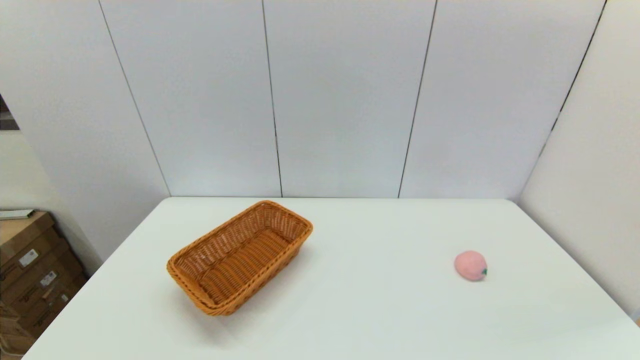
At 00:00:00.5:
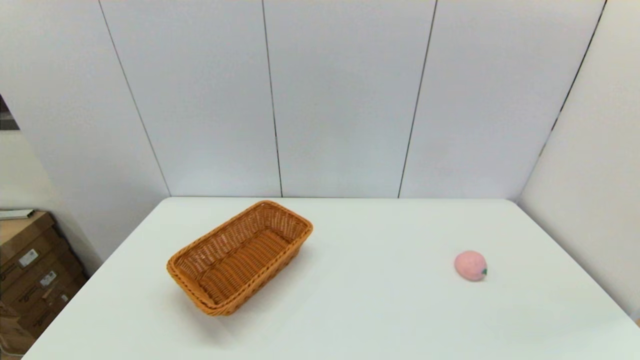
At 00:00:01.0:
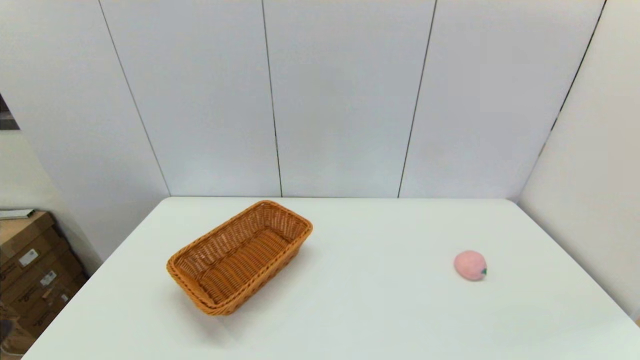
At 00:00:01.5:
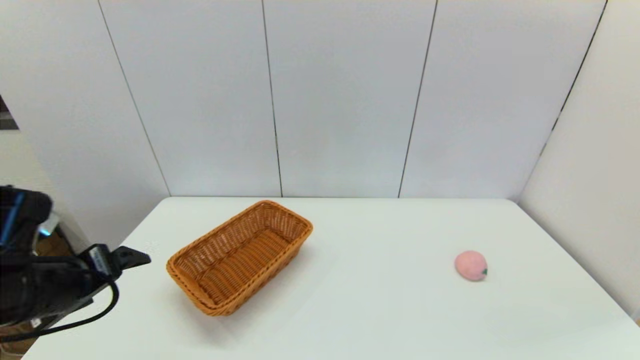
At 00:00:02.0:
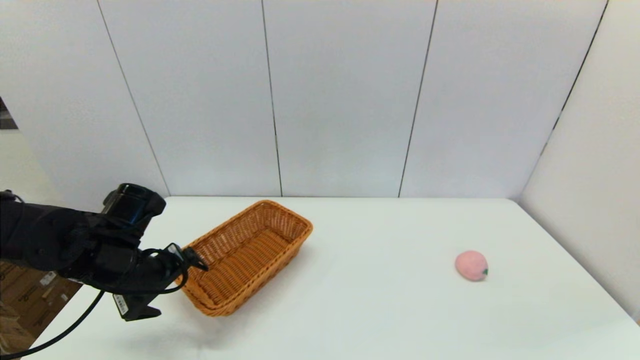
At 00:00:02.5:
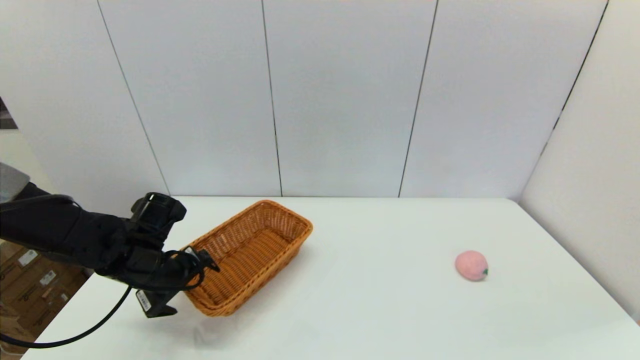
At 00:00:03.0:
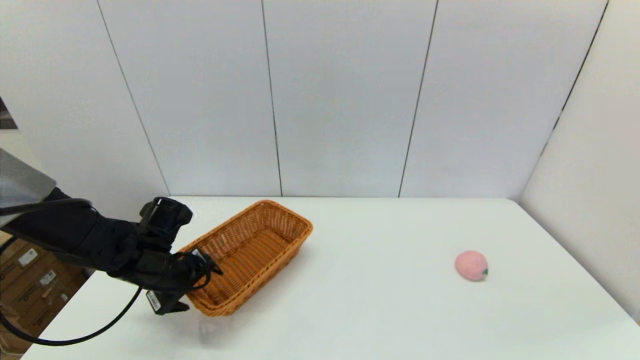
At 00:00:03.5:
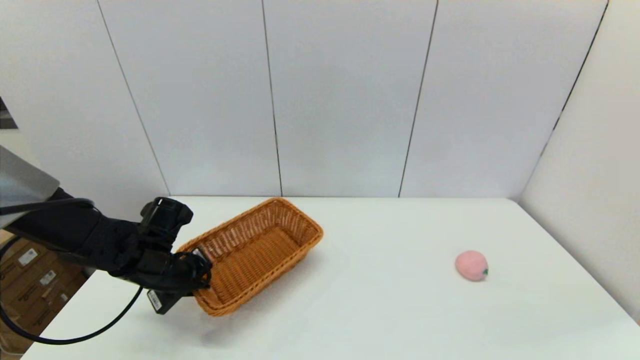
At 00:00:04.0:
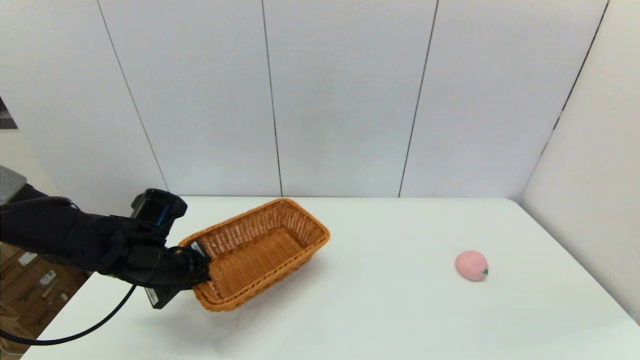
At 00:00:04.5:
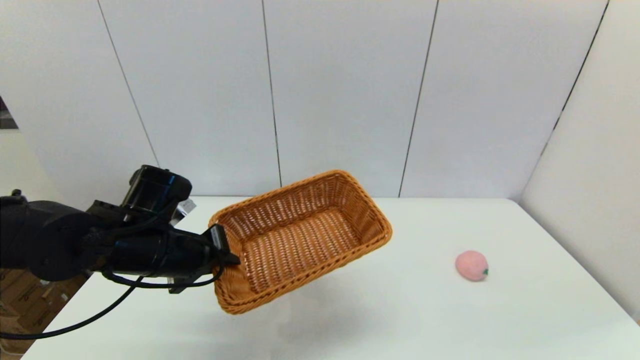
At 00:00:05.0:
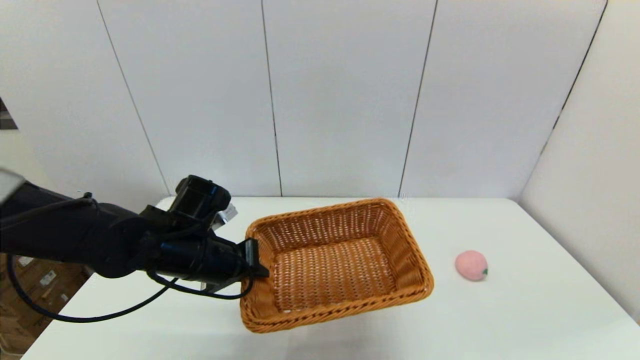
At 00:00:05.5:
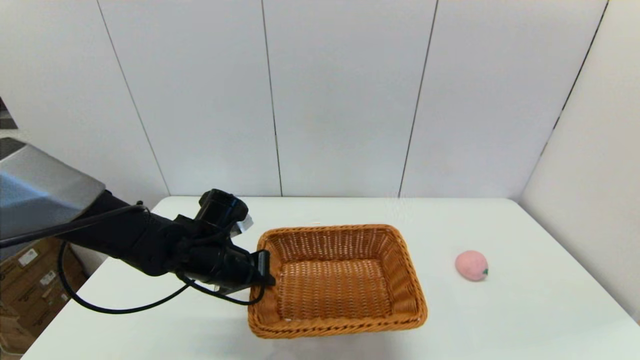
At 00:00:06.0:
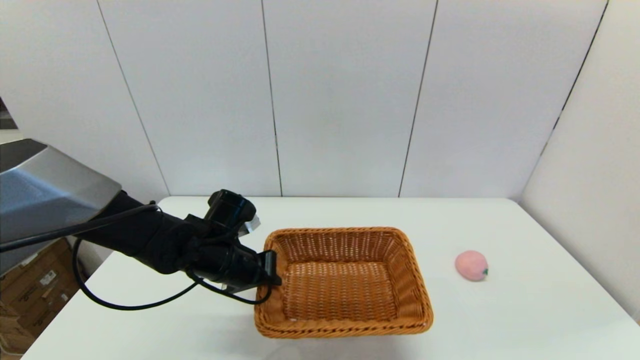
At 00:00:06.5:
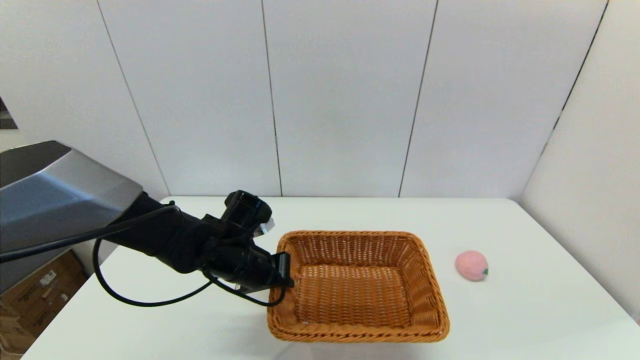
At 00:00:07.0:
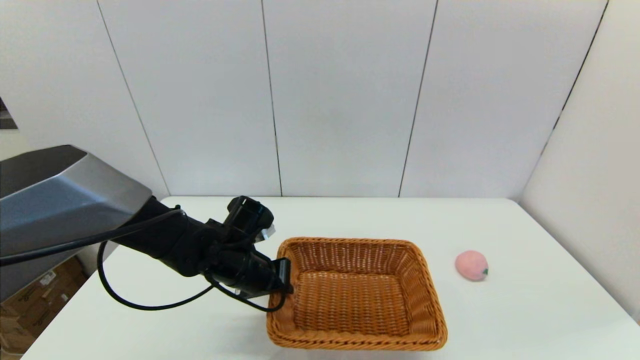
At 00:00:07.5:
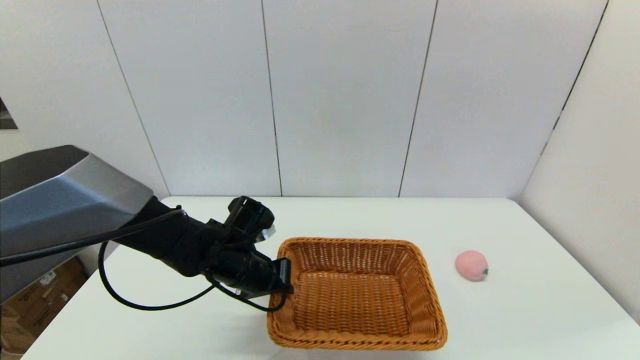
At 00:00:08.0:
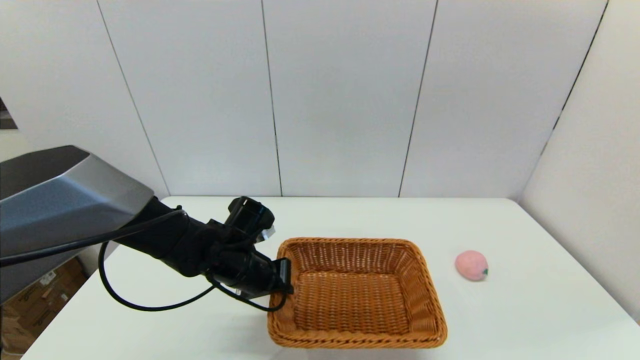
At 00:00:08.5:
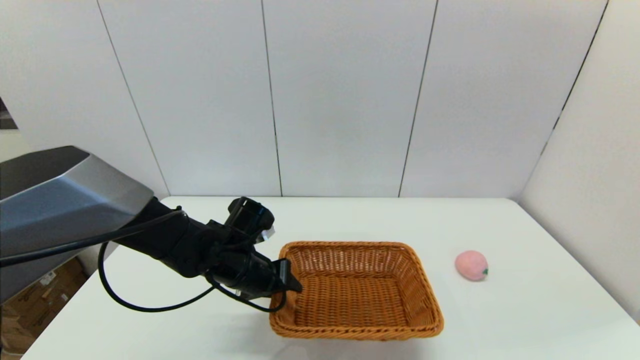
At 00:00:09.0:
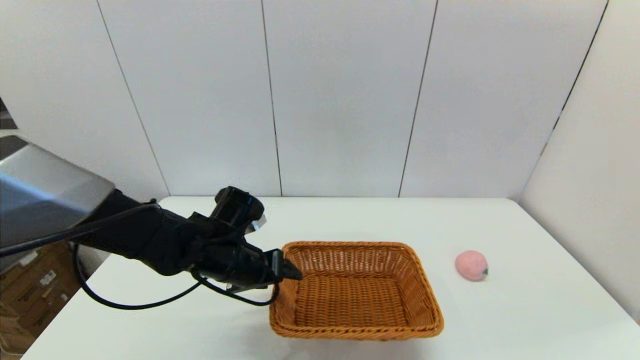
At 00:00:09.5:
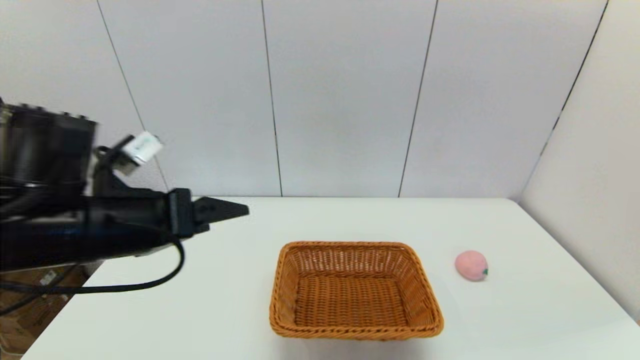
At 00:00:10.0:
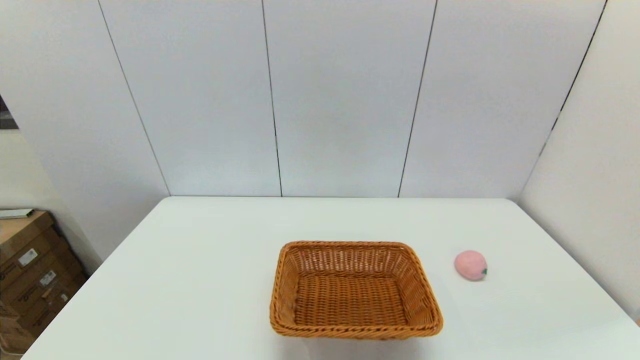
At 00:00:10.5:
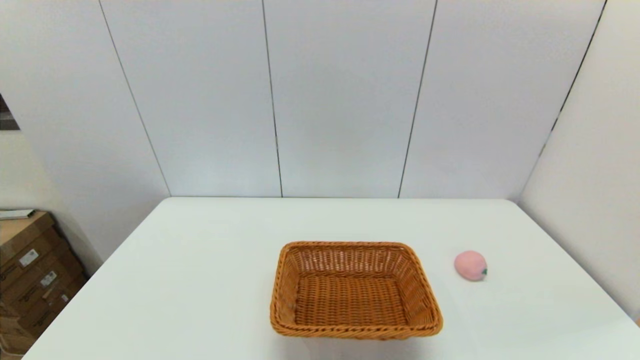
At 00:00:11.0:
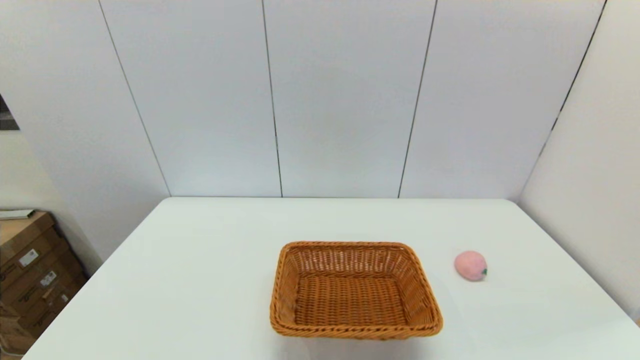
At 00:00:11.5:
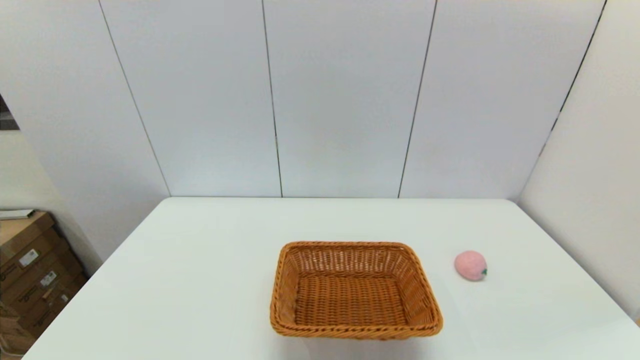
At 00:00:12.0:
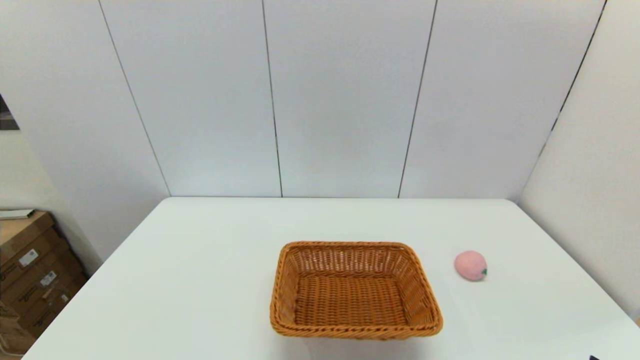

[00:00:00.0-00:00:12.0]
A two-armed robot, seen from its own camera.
Step, 00:00:00.0 to 00:00:03.5: Grasp the light basket with the left gripper.
Step, 00:00:04.0 to 00:00:08.5: Place the light basket on the middle of the table with the left gripper.
00:00:00.0 to 00:00:02.0: The left gripper heads forward, covering approximately 30 cm.
00:00:02.0 to 00:00:04.0: The left gripper closes its fingers.
00:00:04.0 to 00:00:06.0: The left gripper moves to the right, approximately 10 cm.
00:00:06.0 to 00:00:08.0: The grippers stay close to where they were, moving slightly.
00:00:08.0 to 00:00:10.0: The left gripper shifts about 40 cm backward, upward and to the left, and opens its fingers.

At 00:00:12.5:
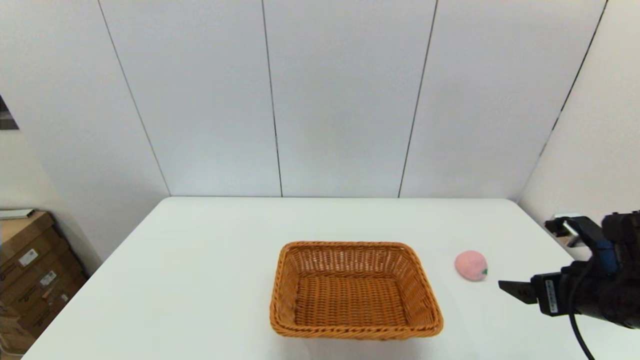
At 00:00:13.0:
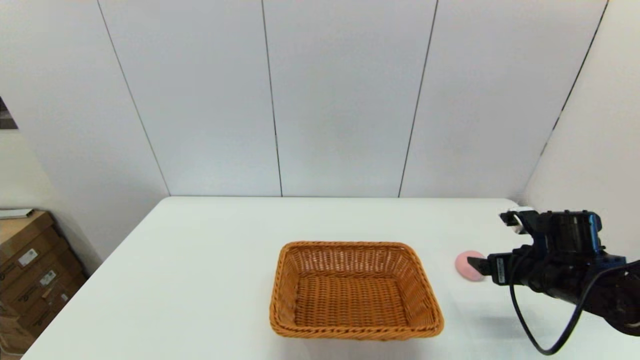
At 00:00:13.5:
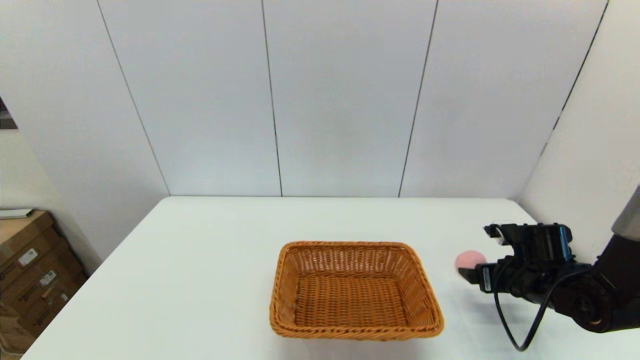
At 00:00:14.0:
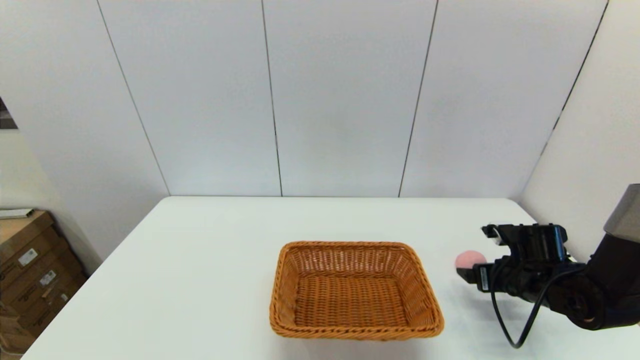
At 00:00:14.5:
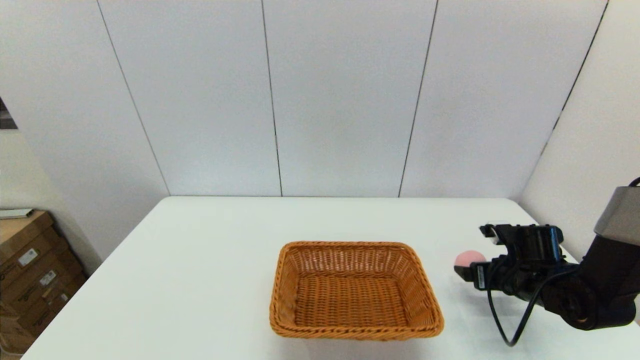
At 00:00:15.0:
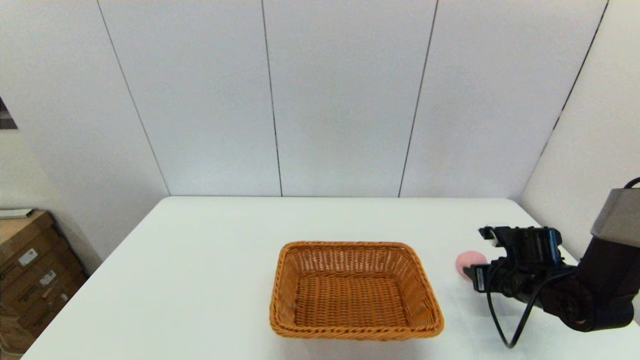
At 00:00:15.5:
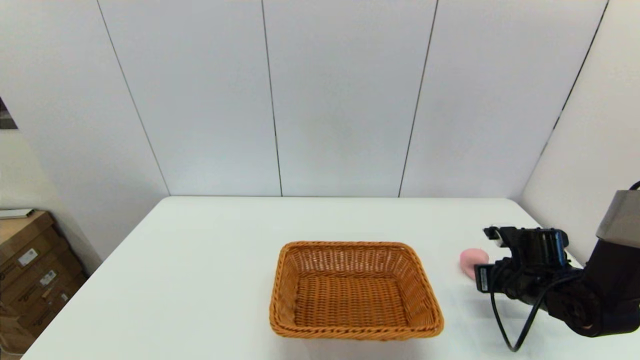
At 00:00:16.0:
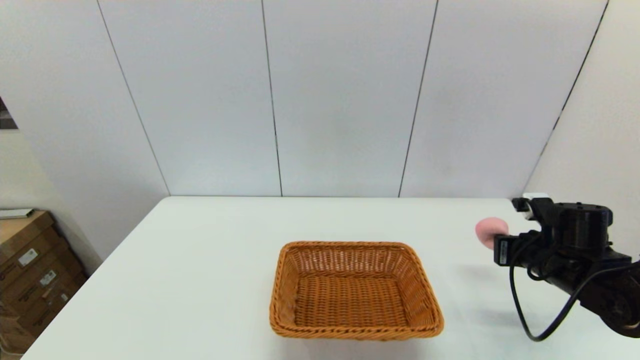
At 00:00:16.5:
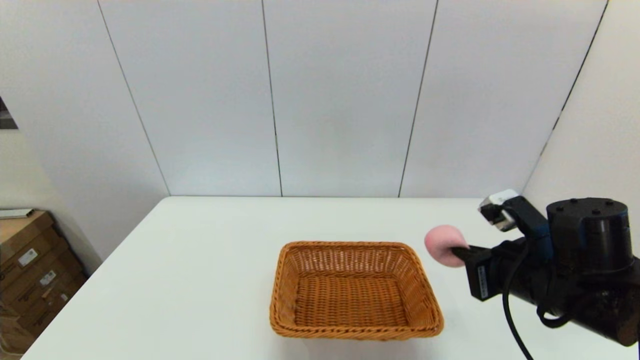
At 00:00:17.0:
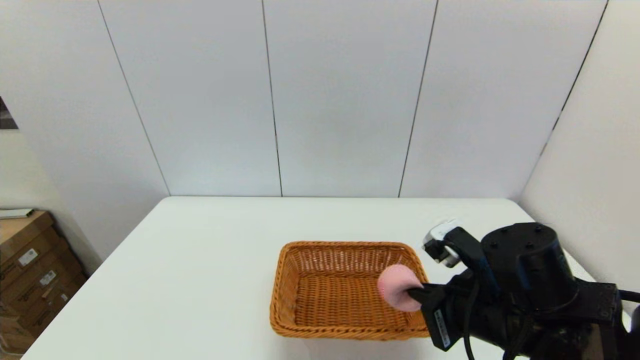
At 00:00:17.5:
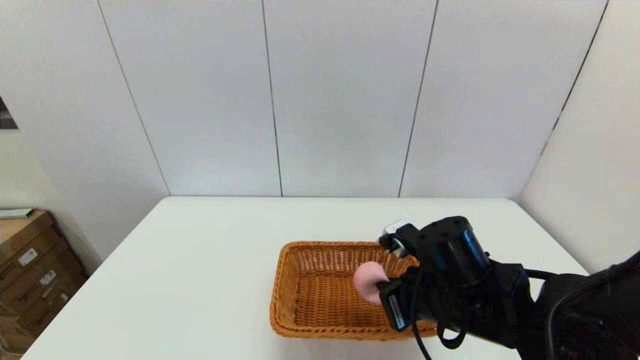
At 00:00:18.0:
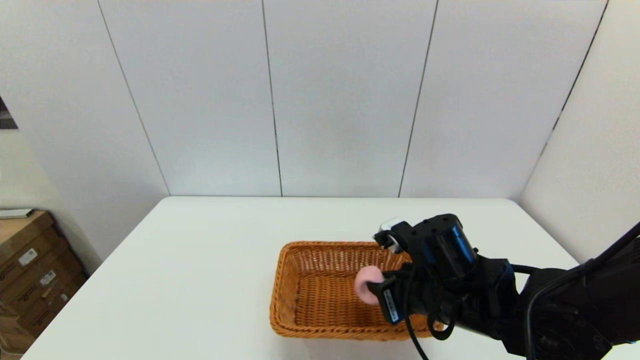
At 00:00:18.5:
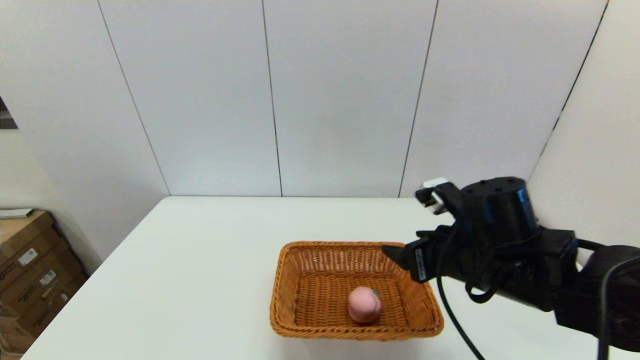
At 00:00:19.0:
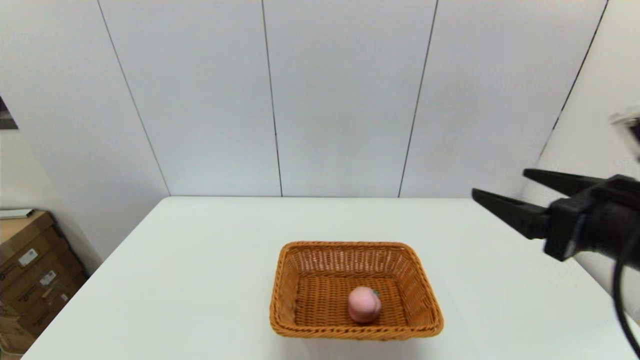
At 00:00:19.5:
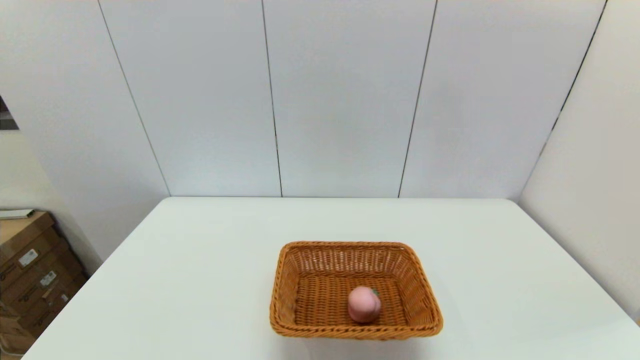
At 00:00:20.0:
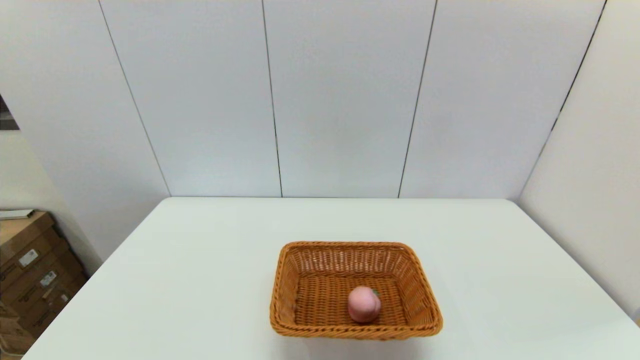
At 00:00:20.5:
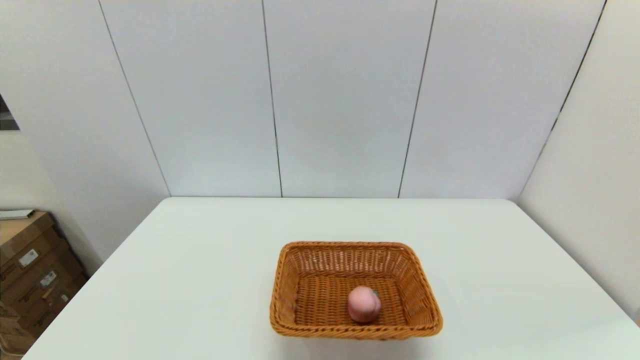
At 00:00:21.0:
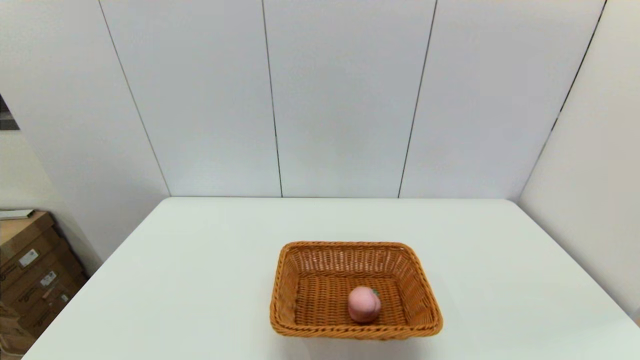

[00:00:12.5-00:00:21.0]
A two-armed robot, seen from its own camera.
Step, 00:00:12.5 to 00:00:15.0: Grasp the peach with the right gripper.
Step, 00:00:15.5 to 00:00:18.0: Place the peach into the light basket with the right gripper.
00:00:12.5 to 00:00:14.5: The right gripper moves downward and forward, approximately 15 cm.
00:00:14.5 to 00:00:16.5: The right gripper moves upward, backward and to the left, roughly 20 cm, and closes its fingers.
00:00:16.5 to 00:00:19.0: The right gripper moves upward and backward, approximately 15 cm, and opens its fingers.
00:00:19.0 to 00:00:21.0: The right gripper is displaced downward, backward and to the right by approximately 25 cm.
